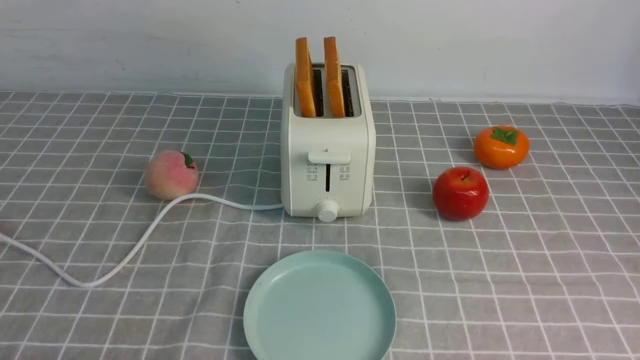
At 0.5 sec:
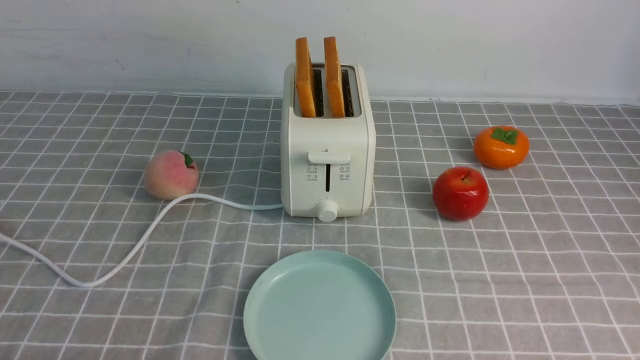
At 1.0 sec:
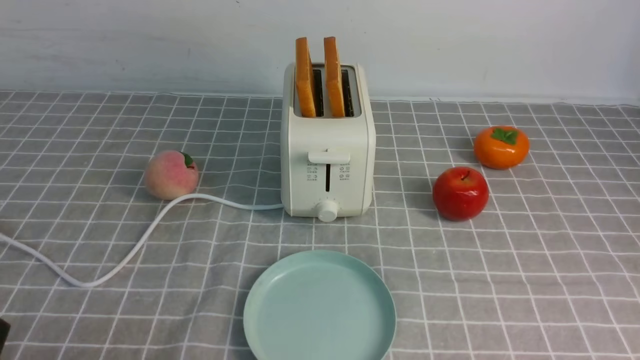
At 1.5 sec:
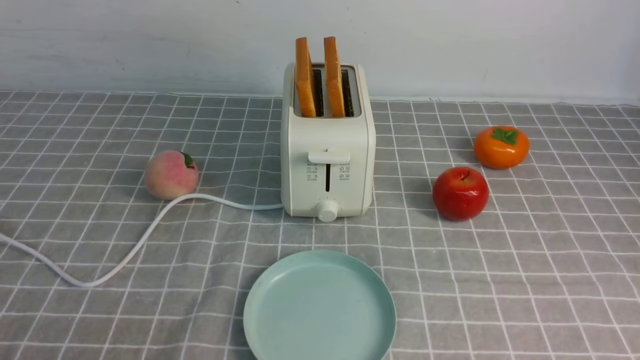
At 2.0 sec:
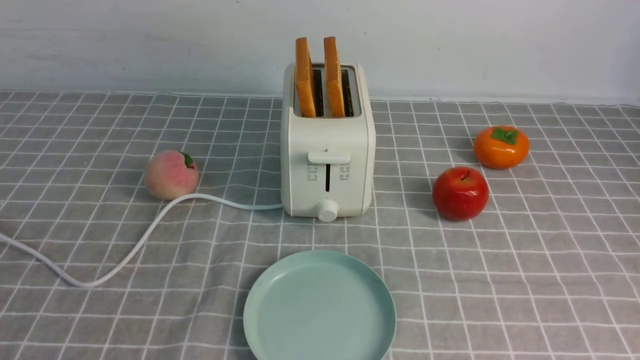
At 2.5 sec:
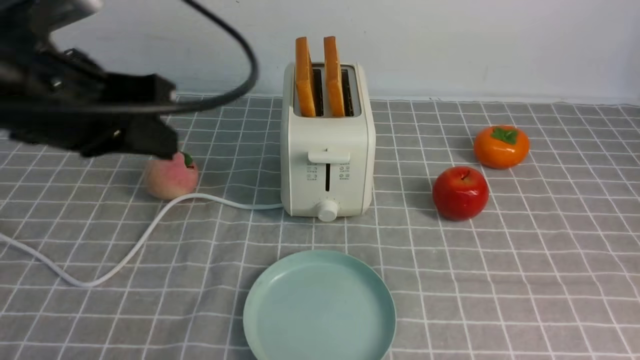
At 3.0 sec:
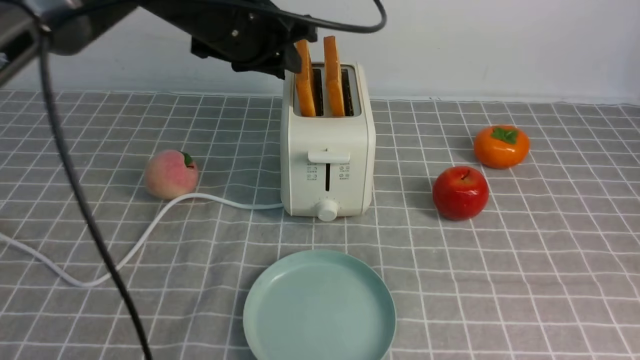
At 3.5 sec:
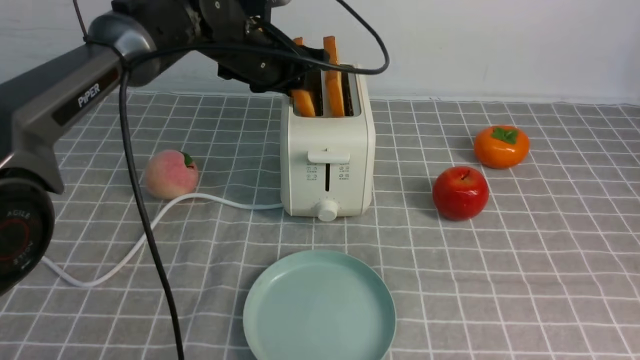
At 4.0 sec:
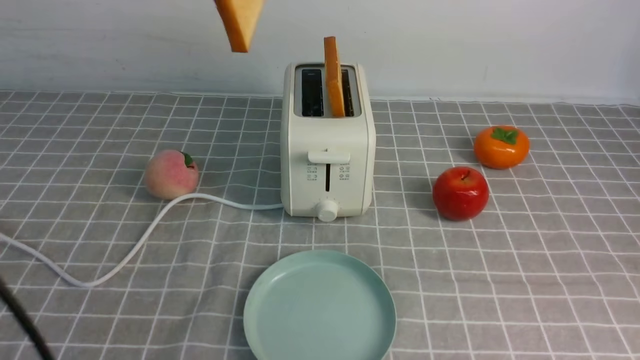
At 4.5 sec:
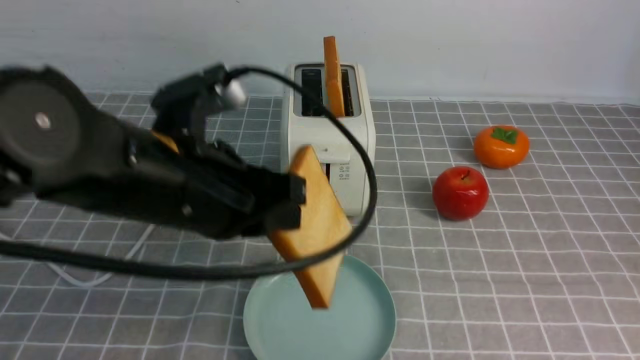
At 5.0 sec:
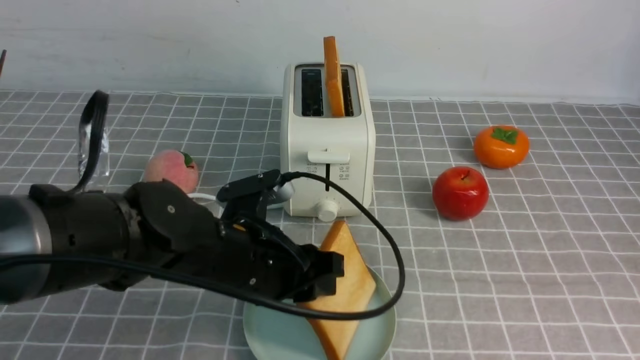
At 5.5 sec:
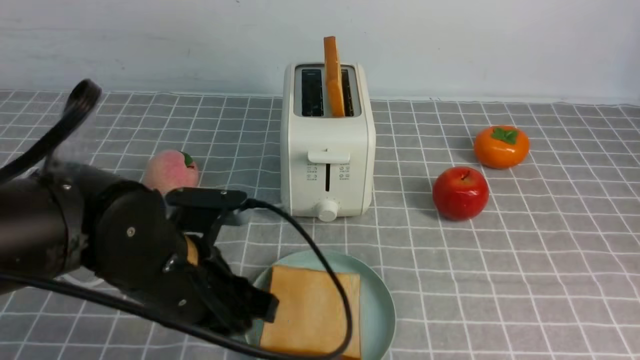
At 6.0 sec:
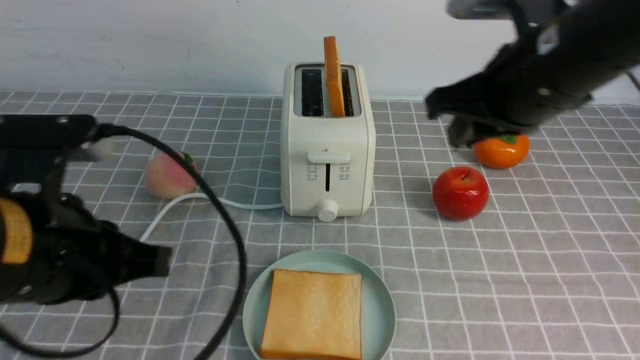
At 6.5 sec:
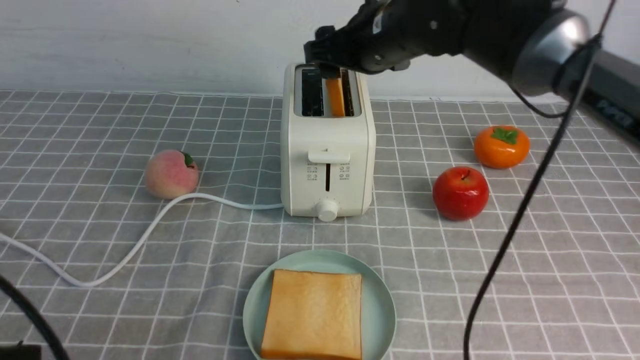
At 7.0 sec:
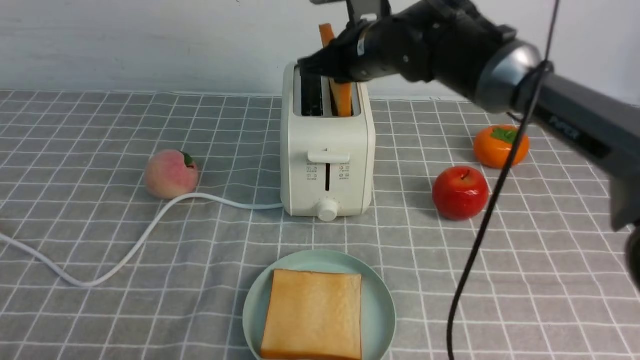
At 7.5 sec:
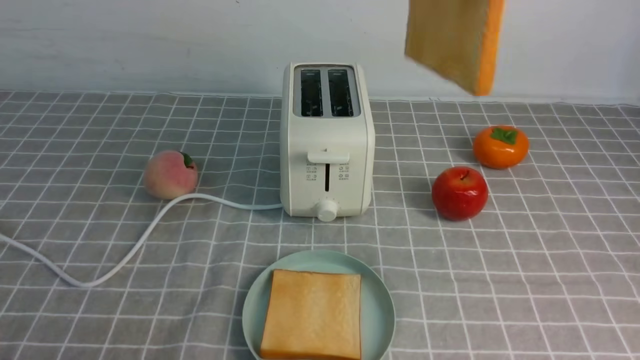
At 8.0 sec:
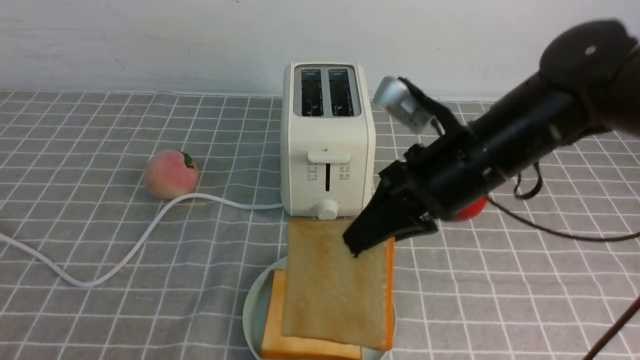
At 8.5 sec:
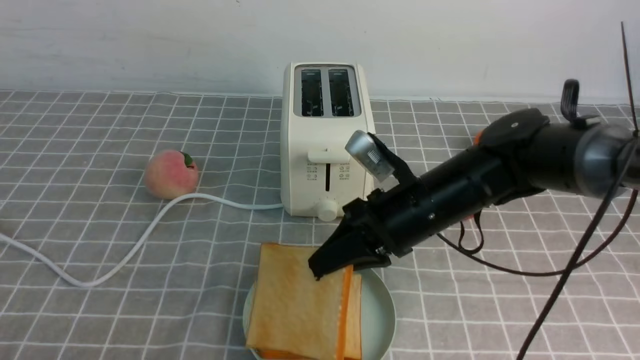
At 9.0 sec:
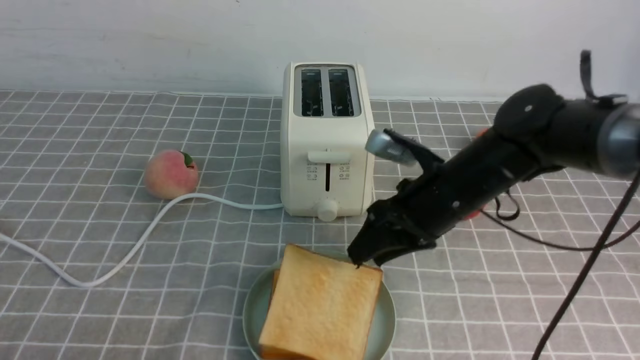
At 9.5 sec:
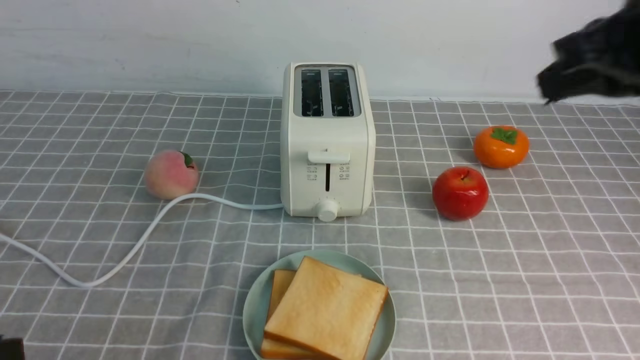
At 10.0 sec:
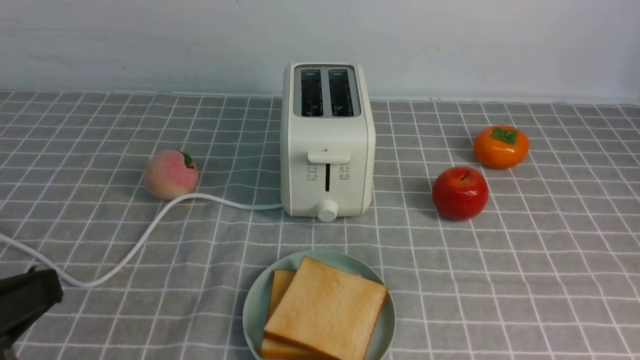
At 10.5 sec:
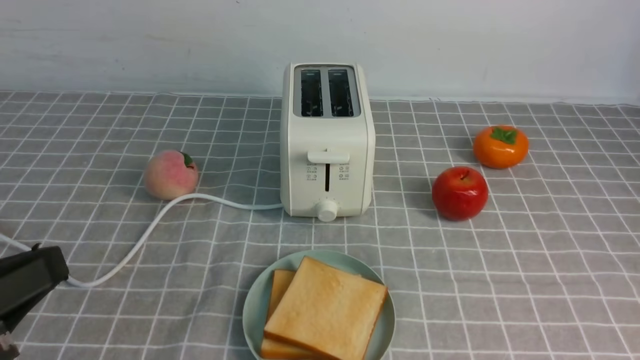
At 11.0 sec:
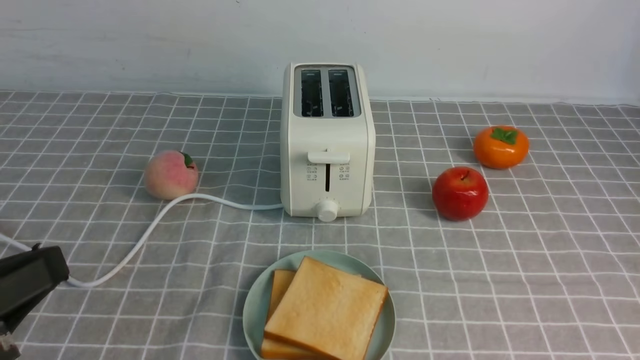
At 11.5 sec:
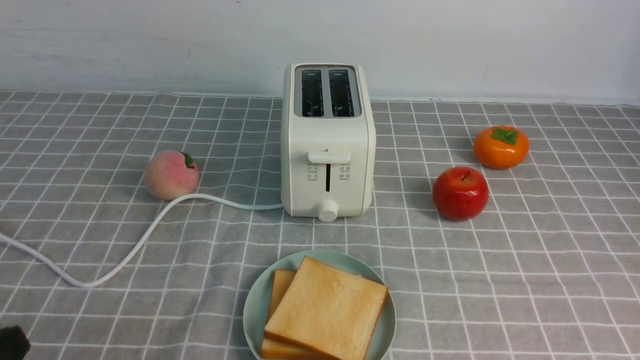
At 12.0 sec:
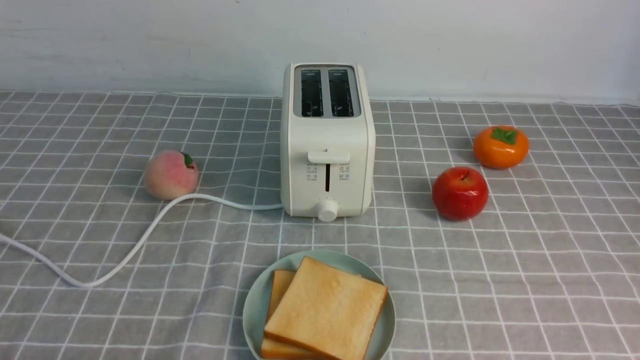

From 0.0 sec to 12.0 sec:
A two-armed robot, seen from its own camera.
Task of the whole recording: take toasted bread from bread machine on grey coffee table place on plate.
Step, from 0.0 sec to 3.5 sec: use the left arm to take out a slice of bread.
Step, from 4.0 sec to 5.0 sec: use the left arm to put a slice of bread into the empty plate.
Step, from 5.5 sec to 7.0 sec: use the right arm to take out a slice of bread.
Step, from 7.5 sec to 9.0 sec: use the right arm to put a slice of bread into the plate.
From 2.0 sec to 4.0 sec: The right gripper heads forward, covering approximately 5 cm. Meanwhile the left gripper travels forward by roughly 25 cm, and opens, then closes again.
From 4.0 sec to 6.0 sec: The right gripper is displaced forward and to the left by some 25 cm, and opens up, while the left gripper is displaced backward and downward by roughly 25 cm, and opens, then closes again.
From 6.0 sec to 8.0 sec: The right gripper goes up and down, about 15 cm each way, reversing 2 times, and opens and closes again. Meanwhile the left gripper heads backward and to the left, covering approximately 10 cm.
From 8.0 sec to 10.0 sec: The right gripper is displaced backward and to the right by about 35 cm, and opens, then closes once more.
From 10.0 sec to 12.0 sec: The left gripper travels downward by about 15 cm.

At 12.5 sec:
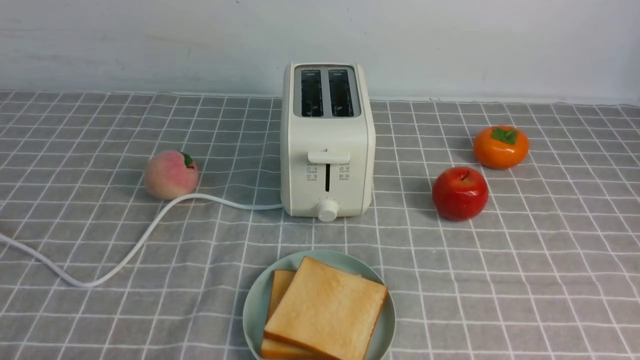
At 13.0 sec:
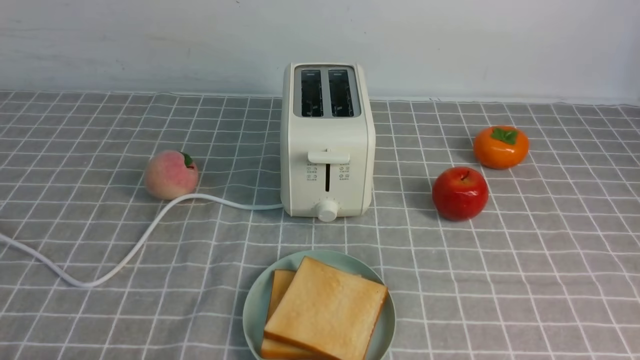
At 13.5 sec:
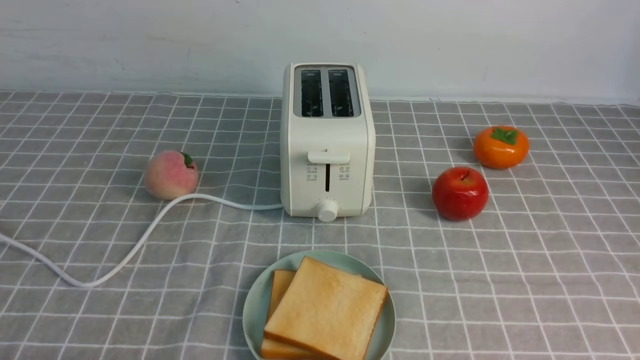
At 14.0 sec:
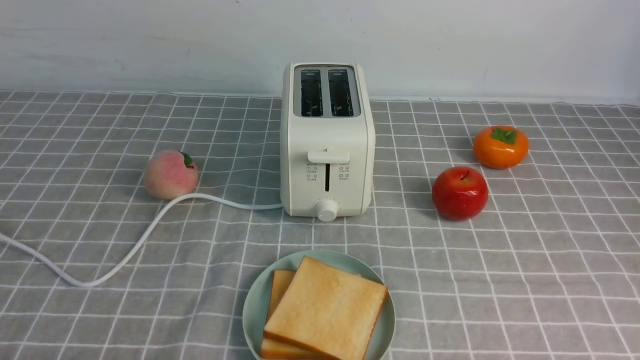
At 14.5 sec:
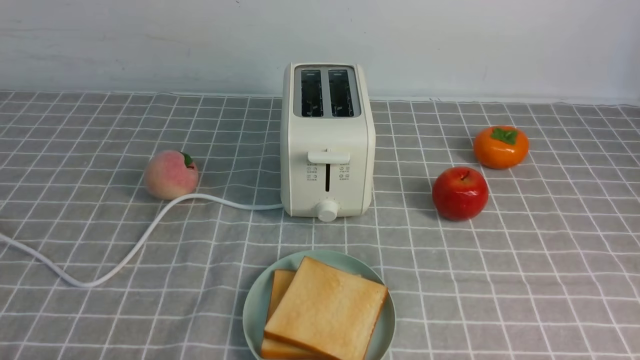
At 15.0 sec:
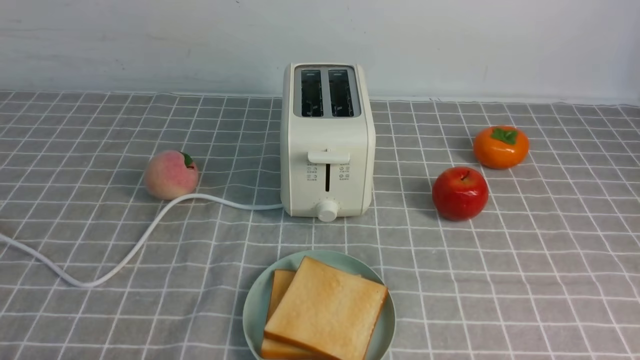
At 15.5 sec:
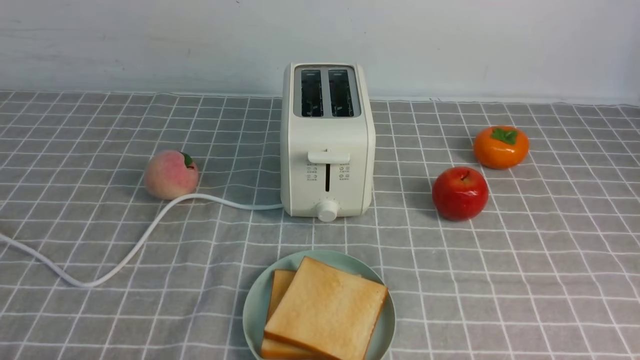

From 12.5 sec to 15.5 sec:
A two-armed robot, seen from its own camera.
Task of the whole recording: take toasted bread from bread machine on grey coffee table place on plate.
From 14.0 sec to 15.5 sec: Neither gripper changes place.

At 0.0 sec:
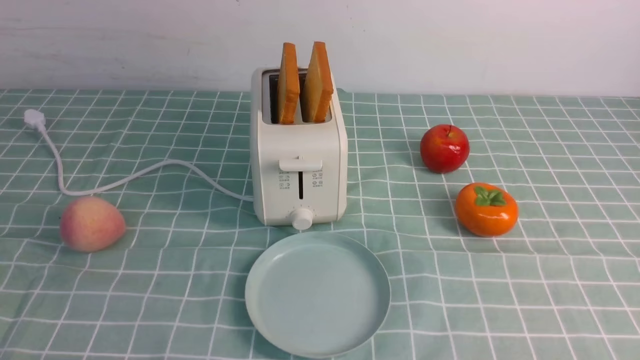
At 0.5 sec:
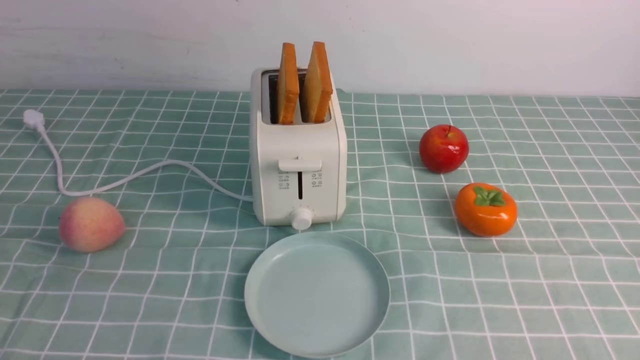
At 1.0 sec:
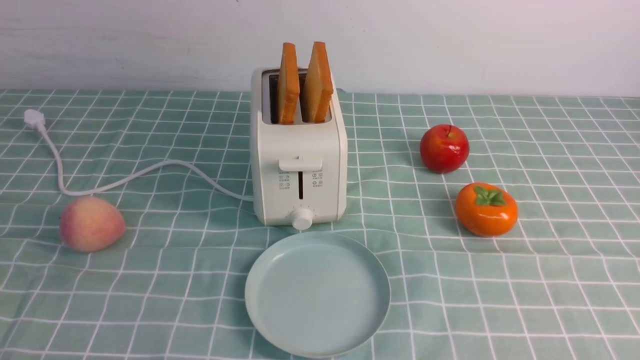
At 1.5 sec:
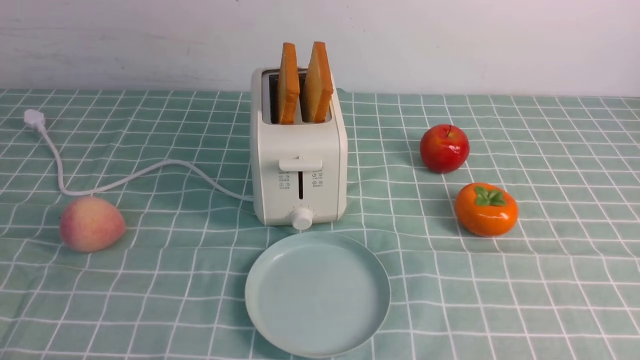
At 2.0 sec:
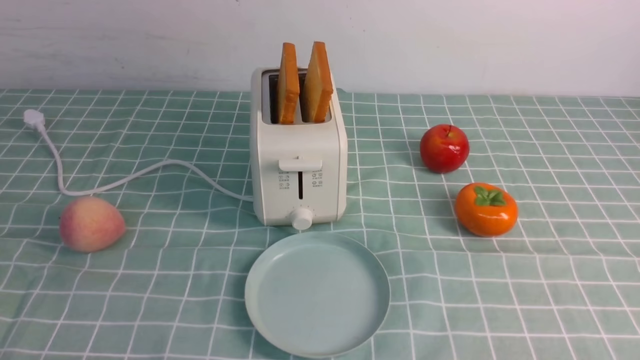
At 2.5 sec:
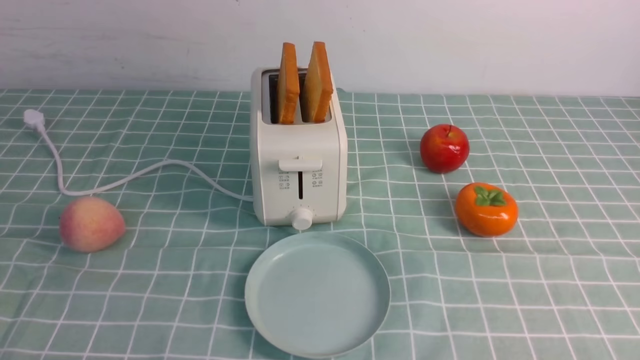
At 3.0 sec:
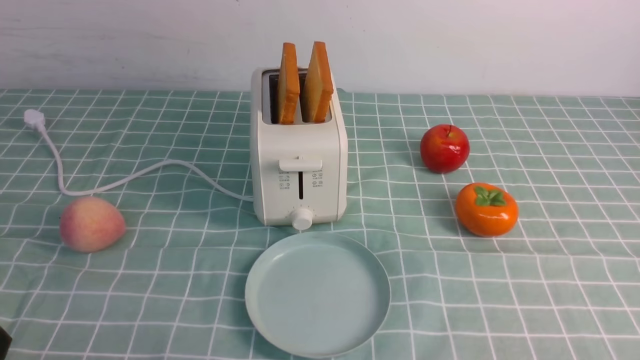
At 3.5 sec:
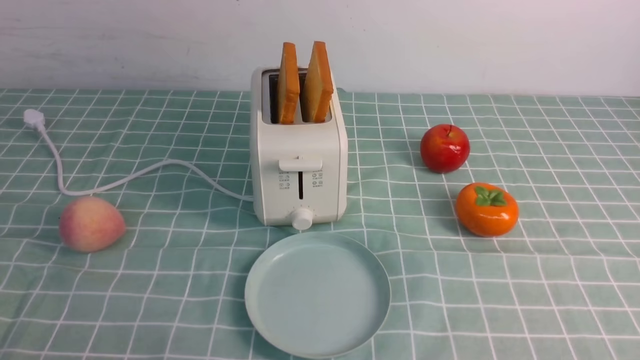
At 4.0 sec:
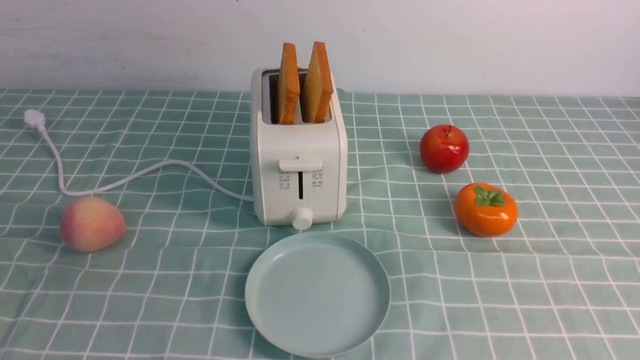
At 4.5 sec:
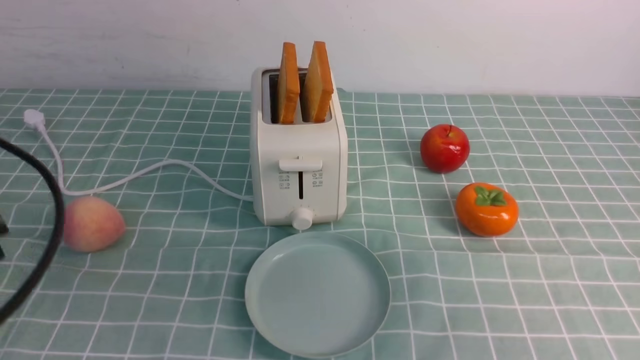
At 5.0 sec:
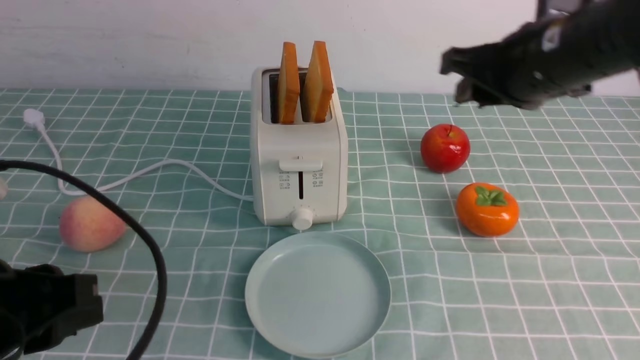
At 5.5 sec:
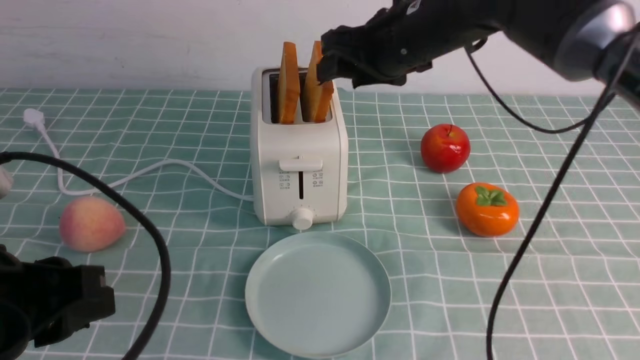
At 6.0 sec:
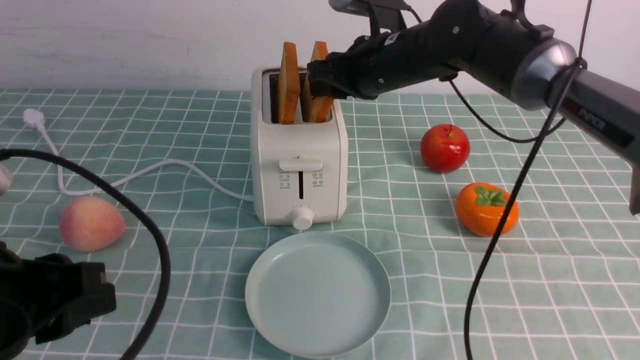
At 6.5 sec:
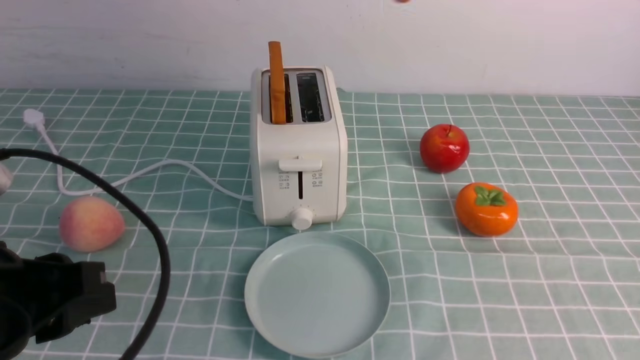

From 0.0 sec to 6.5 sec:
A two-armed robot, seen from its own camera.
Task of the whole recording: take toasted bread from bread machine on blue coffee table place on plate.
Step, from 0.0 sec to 6.0 sec: use the right arm to take out a slice of bread.
From 2.0 sec to 4.5 sec: Both grippers move upward and forward, about 20 cm.
From 4.5 sec to 6.5 sec: The right gripper moves forward, to the left and upward, roughly 25 cm, and opens, then closes again.
